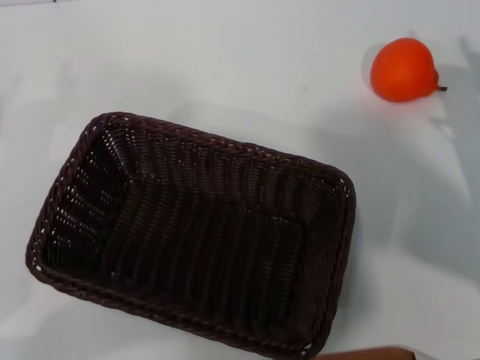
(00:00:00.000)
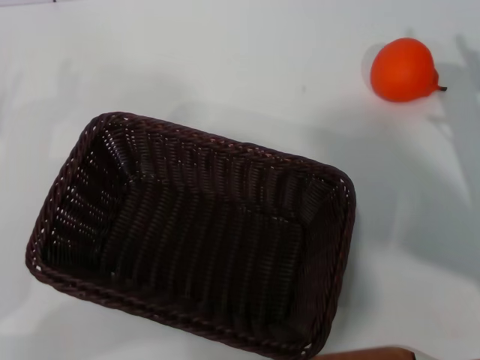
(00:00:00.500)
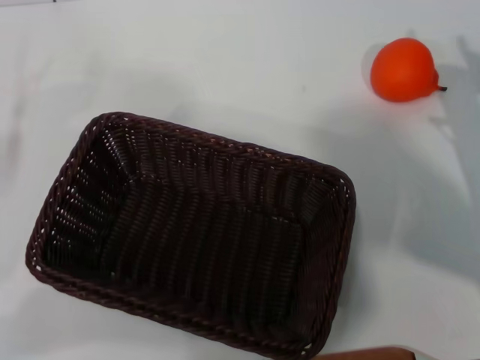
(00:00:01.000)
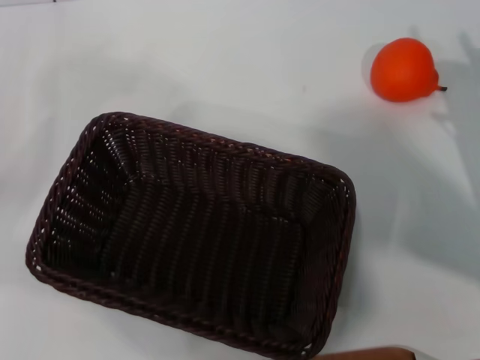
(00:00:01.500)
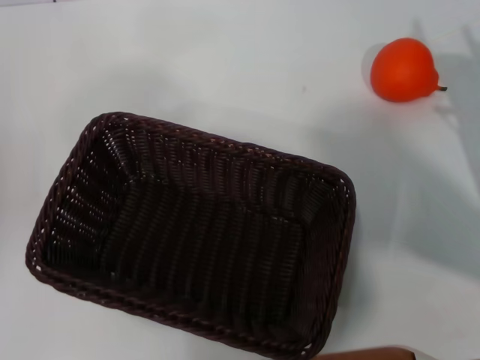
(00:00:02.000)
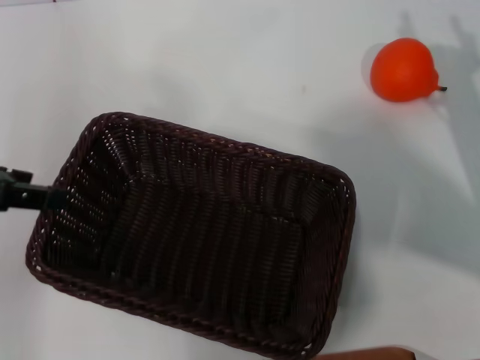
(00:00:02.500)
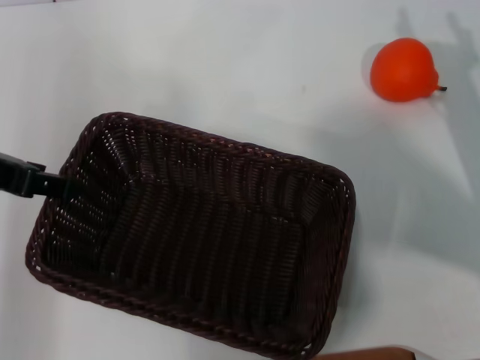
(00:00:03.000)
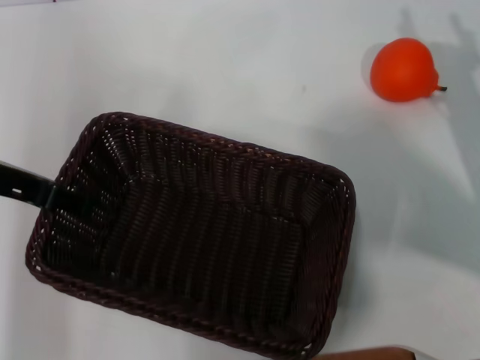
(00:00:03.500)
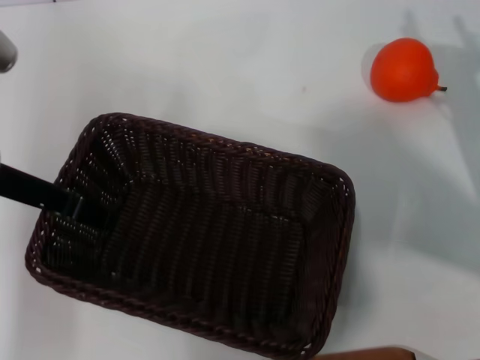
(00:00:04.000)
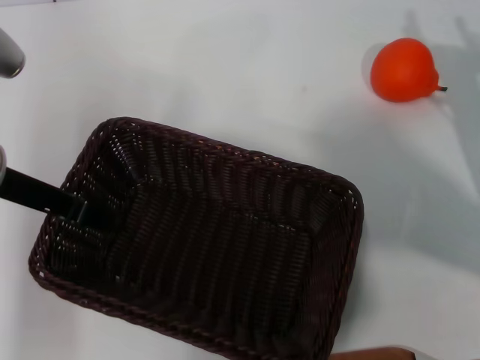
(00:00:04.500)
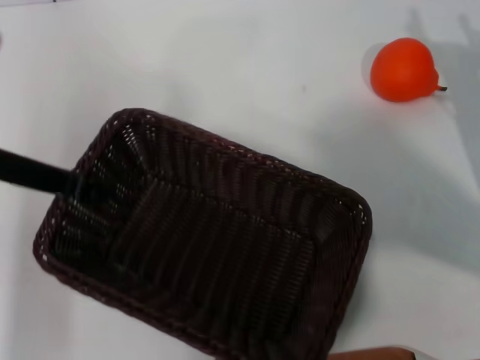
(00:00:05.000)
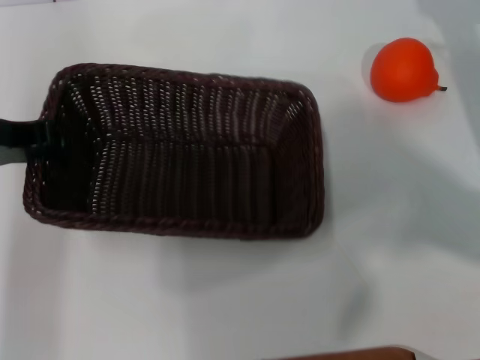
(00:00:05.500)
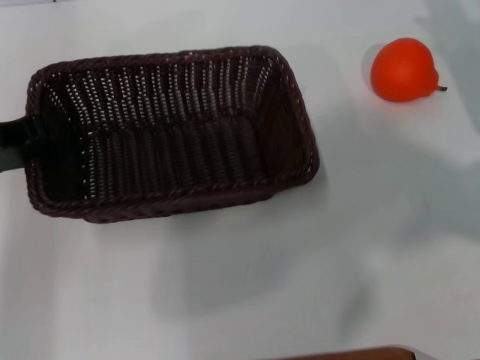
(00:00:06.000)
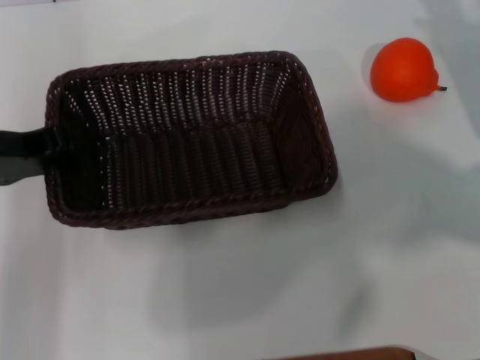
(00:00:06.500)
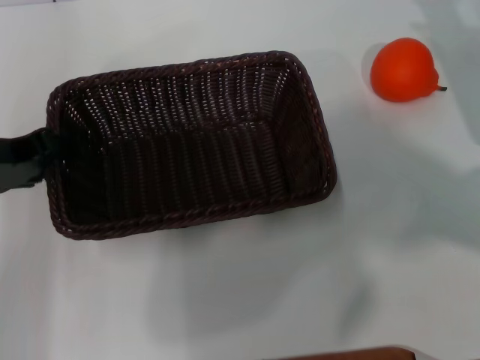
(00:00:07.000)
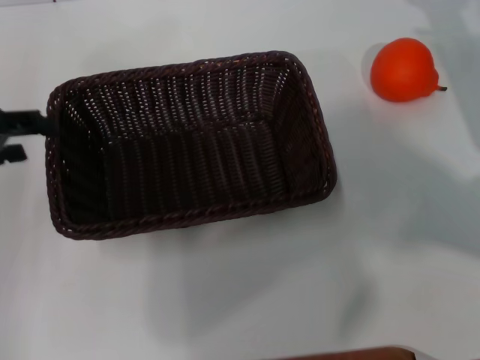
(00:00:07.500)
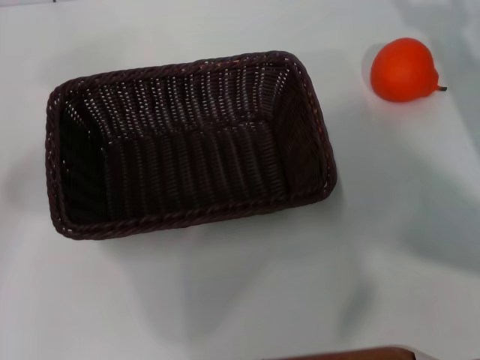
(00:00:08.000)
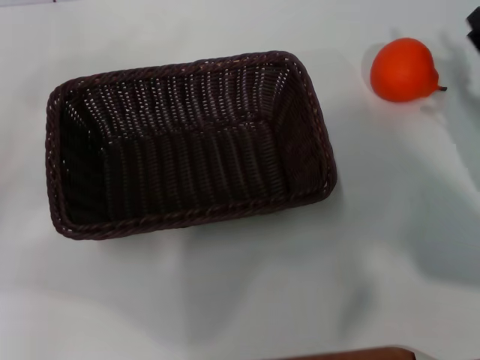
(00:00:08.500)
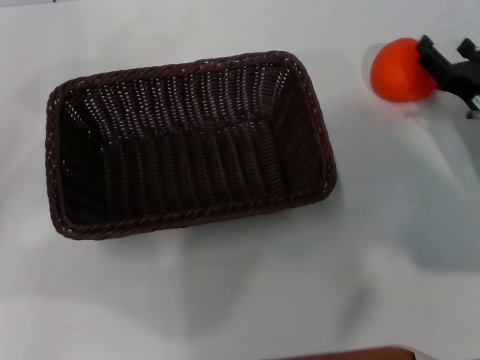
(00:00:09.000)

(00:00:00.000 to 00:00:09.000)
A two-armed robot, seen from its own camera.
Task of the whole recording: the left gripper pick up the black basket and place it horizontally in the middle of the table, the right gripper pick up the orange and place it into the black basket.
Step, 00:00:00.000 - 00:00:05.000: Pick up the dark basket with the left gripper.
Step, 00:00:05.500 - 00:00:07.000: Place the dark basket in the center of view with the left gripper.
00:00:00.000 - 00:00:02.000: The left gripper is displaced upward by about 20 cm.
00:00:02.000 - 00:00:04.500: The left gripper is displaced to the right, downward and forward by roughly 15 cm, and closes its fingers.
00:00:04.500 - 00:00:07.000: The left gripper closes, then opens again. The right gripper travels forward by approximately 10 cm.
00:00:07.000 - 00:00:09.000: The right gripper heads downward and backward, covering about 10 cm. The left gripper is displaced to the left by approximately 10 cm, and opens.

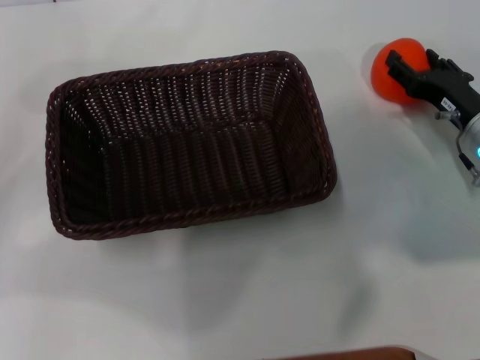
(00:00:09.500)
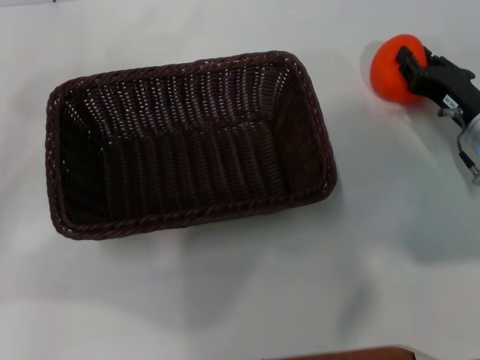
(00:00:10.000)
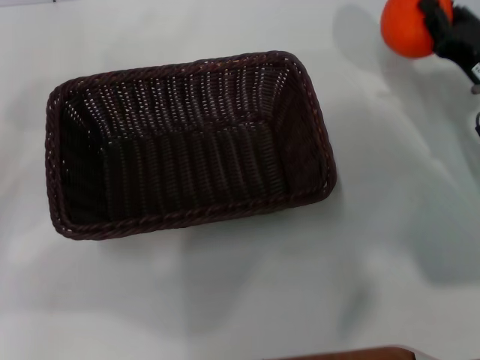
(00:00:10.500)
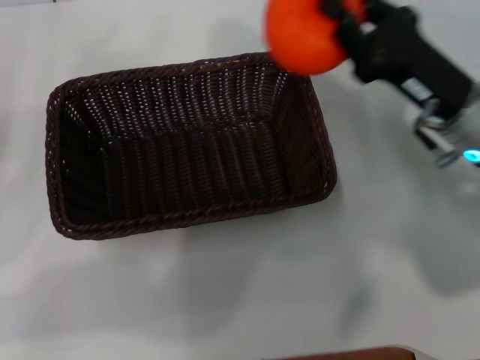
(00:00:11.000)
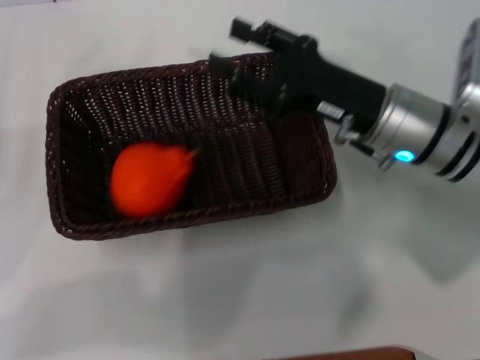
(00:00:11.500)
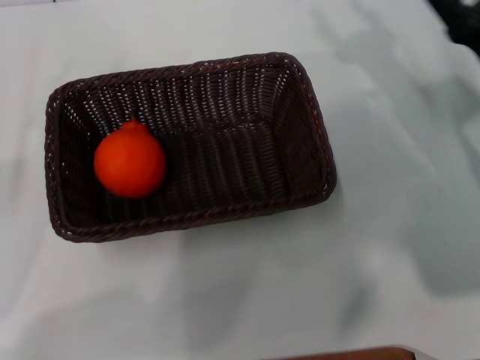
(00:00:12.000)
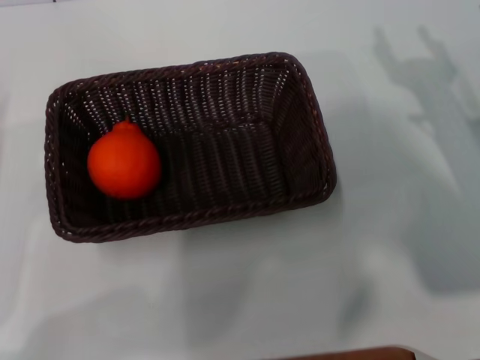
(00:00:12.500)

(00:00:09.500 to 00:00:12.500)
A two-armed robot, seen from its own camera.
Task of the whole recording: the left gripper pick up the black basket and place it horizontally in the middle of the table, the right gripper pick up the orange and place it into the black basket.
Step, 00:00:10.500 - 00:00:11.000: Place the orange into the dark basket with the right gripper.
00:00:09.500 - 00:00:11.000: The right gripper is displaced upward and to the left by about 10 cm, and closes.
00:00:11.000 - 00:00:12.500: The right gripper goes approximately 10 cm to the right, and opens; the left gripper goes roughly 10 cm downward.
